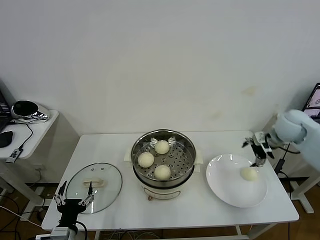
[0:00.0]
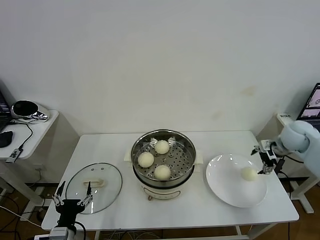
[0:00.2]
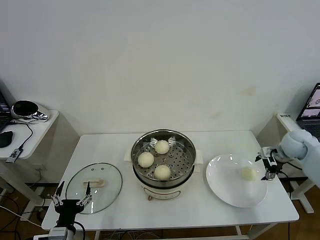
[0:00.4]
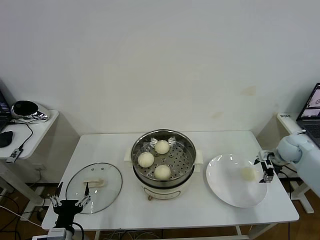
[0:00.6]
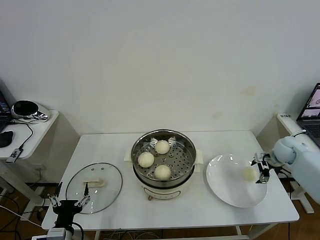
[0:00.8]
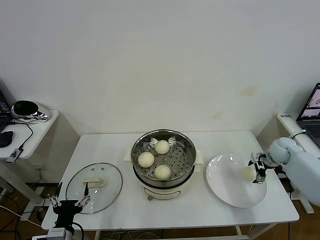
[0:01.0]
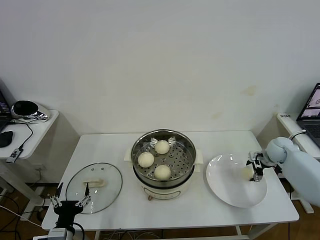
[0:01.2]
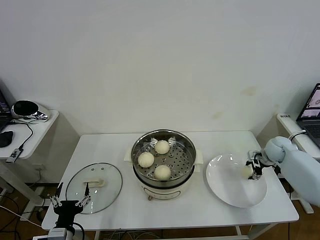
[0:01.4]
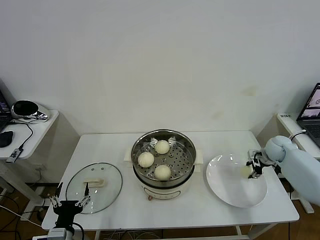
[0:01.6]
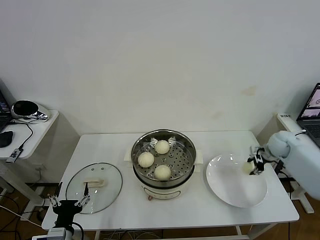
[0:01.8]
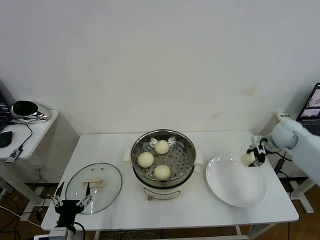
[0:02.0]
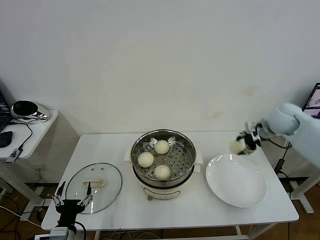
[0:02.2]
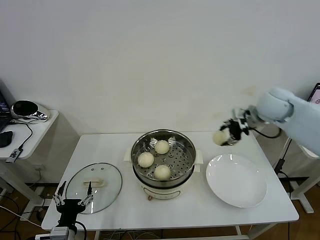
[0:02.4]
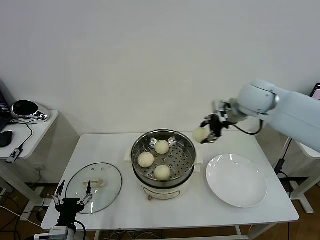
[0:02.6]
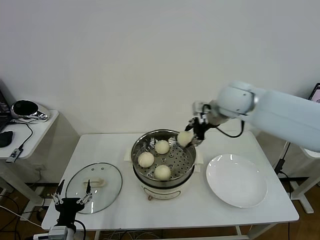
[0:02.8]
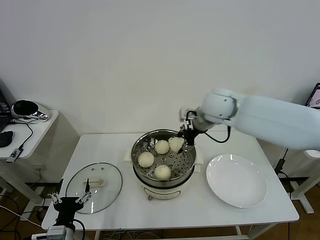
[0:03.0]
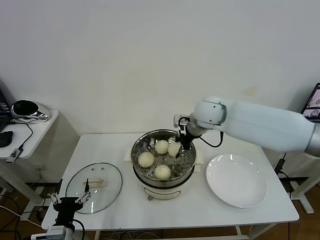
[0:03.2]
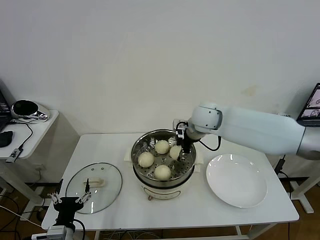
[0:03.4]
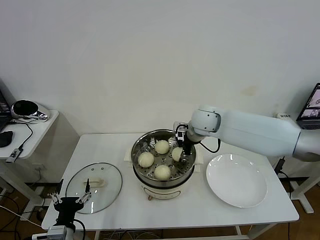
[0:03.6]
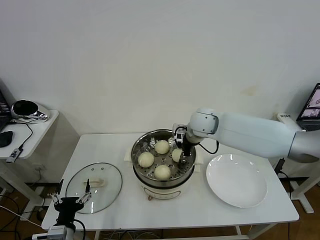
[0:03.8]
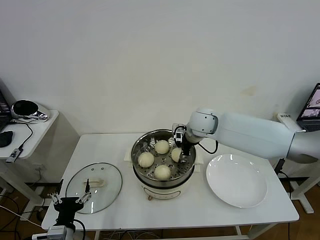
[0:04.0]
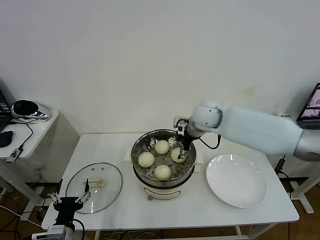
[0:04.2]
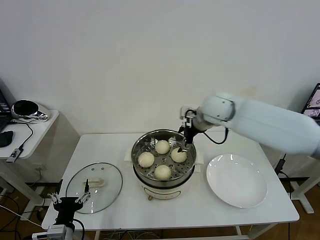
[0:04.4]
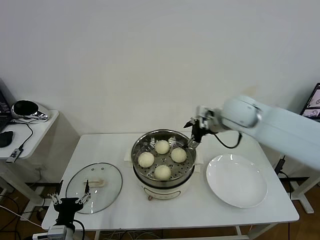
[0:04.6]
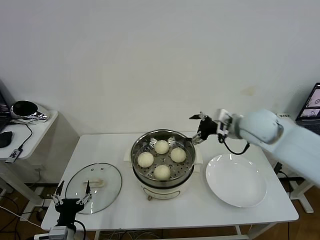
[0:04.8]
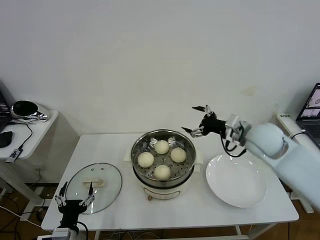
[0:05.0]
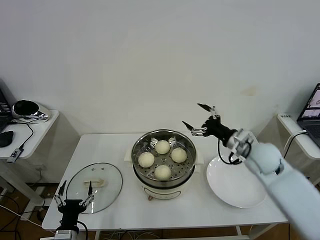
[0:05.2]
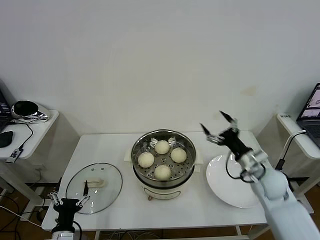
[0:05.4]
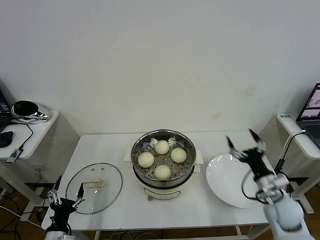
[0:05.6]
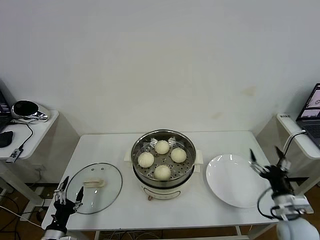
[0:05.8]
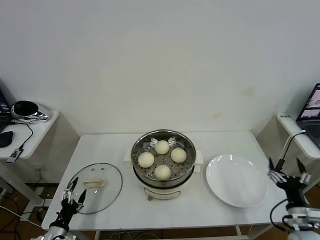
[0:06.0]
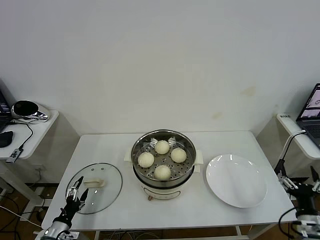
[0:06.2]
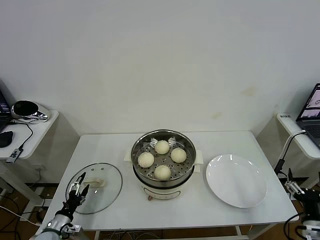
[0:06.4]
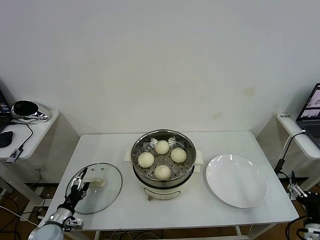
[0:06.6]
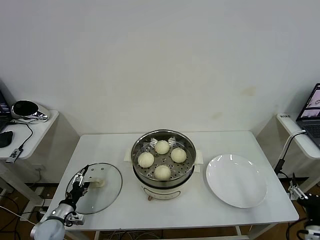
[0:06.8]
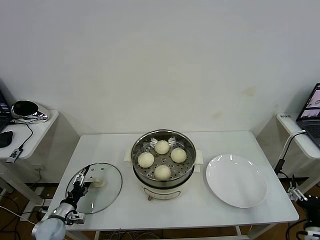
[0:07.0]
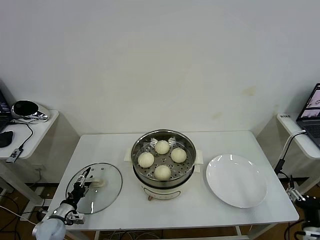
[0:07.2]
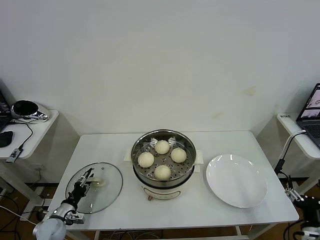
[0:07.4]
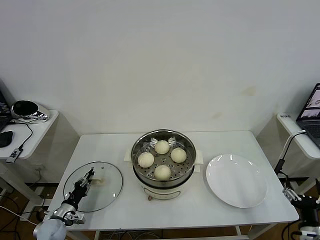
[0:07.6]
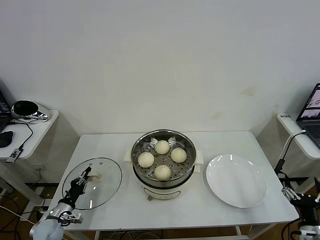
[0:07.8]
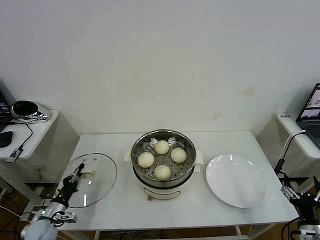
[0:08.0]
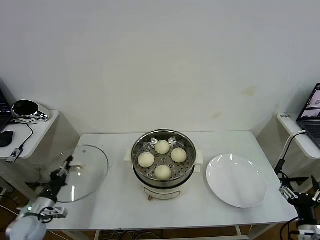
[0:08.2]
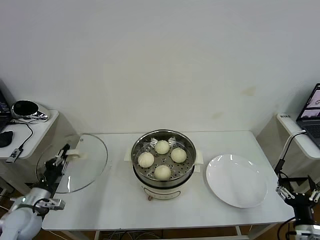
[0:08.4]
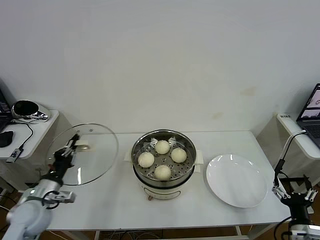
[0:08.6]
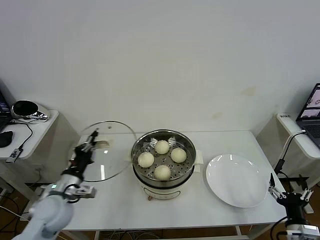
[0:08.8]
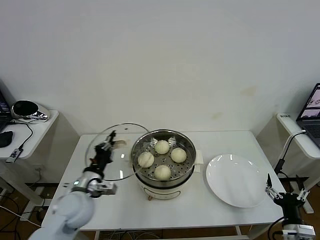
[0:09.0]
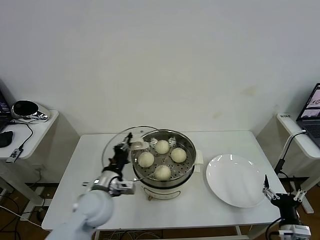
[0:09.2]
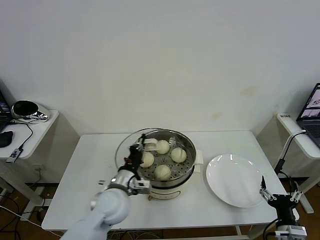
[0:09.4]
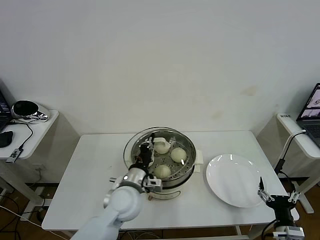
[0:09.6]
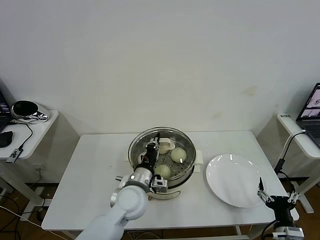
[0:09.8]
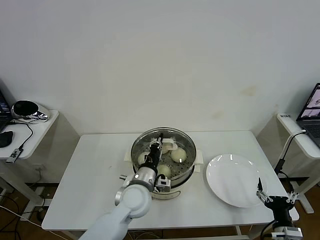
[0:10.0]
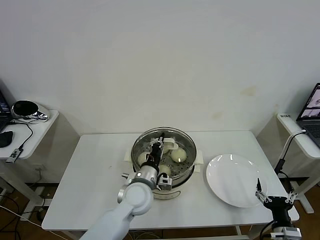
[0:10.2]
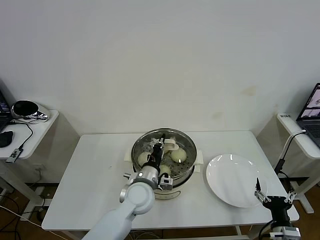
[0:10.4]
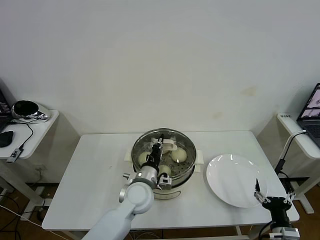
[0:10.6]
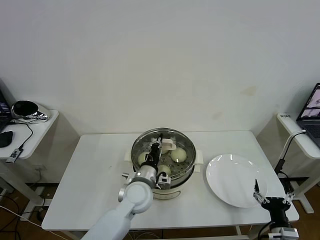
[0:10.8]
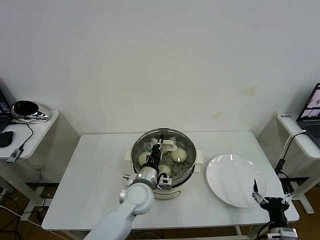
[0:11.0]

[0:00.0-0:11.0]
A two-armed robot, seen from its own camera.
Task of the whole recording: take steamed baozi put them in steamer then cover it.
Step, 0.0 to 1.4 s: Grasp the baozi in the plate with right gripper.
Step, 1.6 to 4.2 s: Place the baozi on the steamer with right gripper.
Step, 4.4 to 7.8 s: Grasp the pot lid with left gripper.
0.0 to 1.6 s: The right gripper heads downward, covering some 15 cm, and closes up.
1.6 to 3.2 s: The right gripper is displaced to the left and upward by approximately 35 cm.
3.2 to 4.8 s: The right gripper is displaced to the right and backward by about 15 cm, and opens its fingers.
4.8 to 6.2 s: The left gripper travels to the left and downward by about 15 cm. The right gripper heads backward, downward and to the right, covering about 40 cm.
6.2 to 7.8 s: The left gripper goes some 10 cm forward, and closes up.
7.8 to 9.4 s: The right gripper moves approximately 5 cm. The left gripper heads to the right and upward, covering approximately 30 cm.
9.4 to 11.0 s: The left gripper travels to the right by about 10 cm.

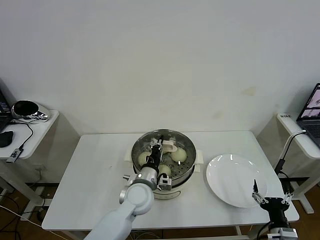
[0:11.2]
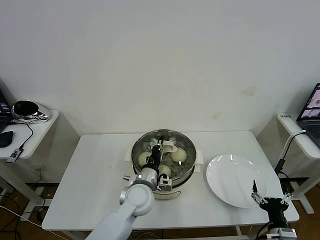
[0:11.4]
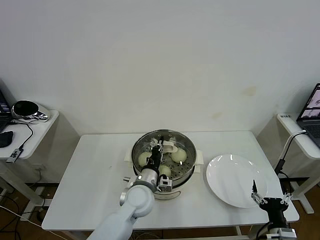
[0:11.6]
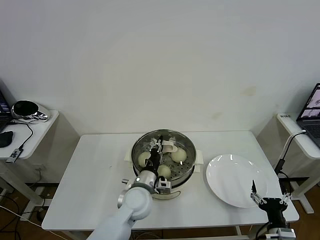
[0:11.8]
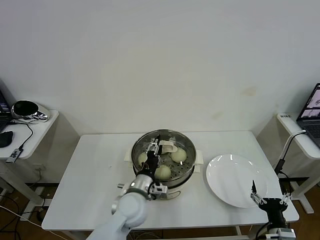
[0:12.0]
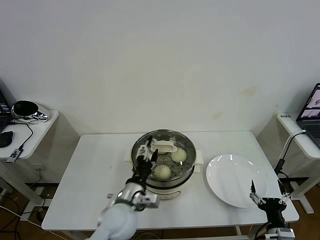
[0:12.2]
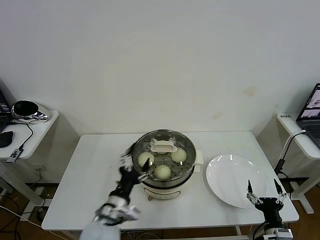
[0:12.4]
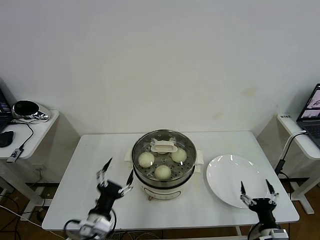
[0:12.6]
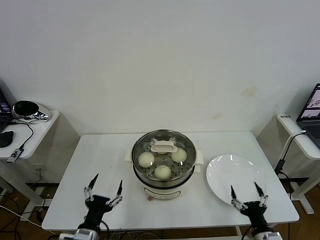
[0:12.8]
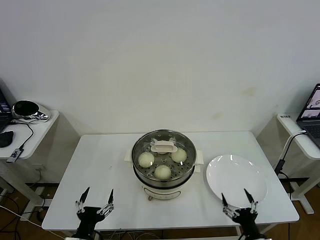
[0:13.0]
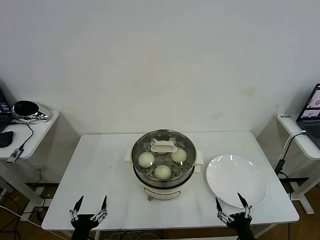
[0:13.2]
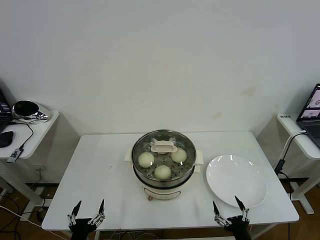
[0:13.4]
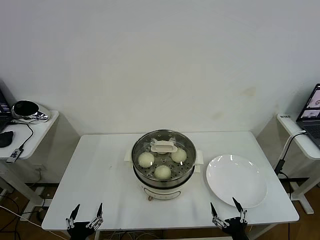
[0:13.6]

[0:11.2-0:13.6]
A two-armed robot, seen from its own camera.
Task of the whole recording: take steamed baozi put them in steamer then cover it.
11.2 to 12.4 s: The left gripper heads backward and to the left, covering some 15 cm, and opens.
12.4 to 13.6 s: The right gripper travels to the left by about 5 cm, while the left gripper goes roughly 20 cm backward, to the left and downward.

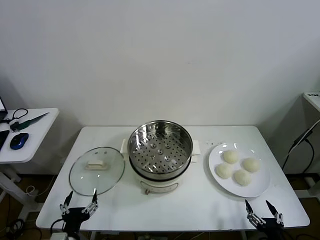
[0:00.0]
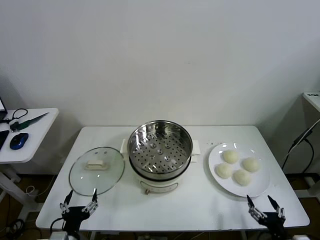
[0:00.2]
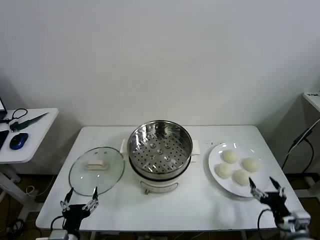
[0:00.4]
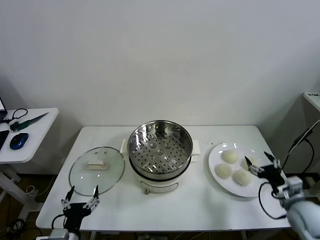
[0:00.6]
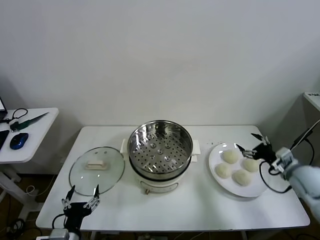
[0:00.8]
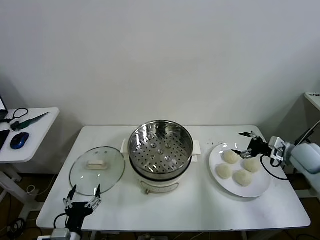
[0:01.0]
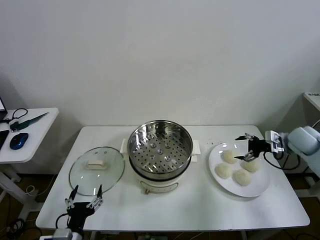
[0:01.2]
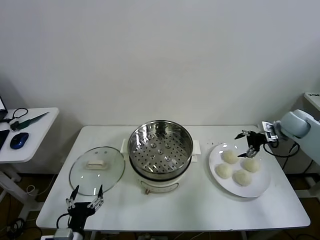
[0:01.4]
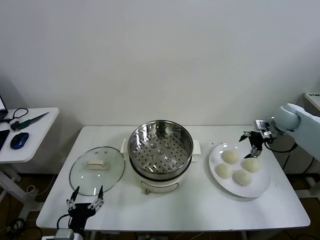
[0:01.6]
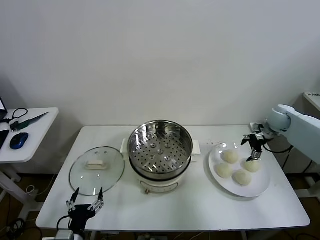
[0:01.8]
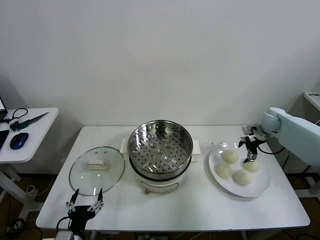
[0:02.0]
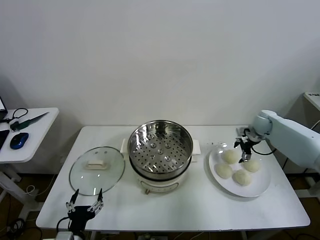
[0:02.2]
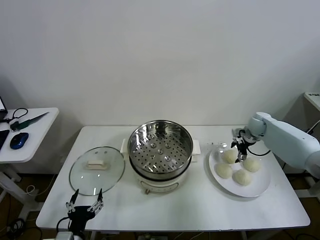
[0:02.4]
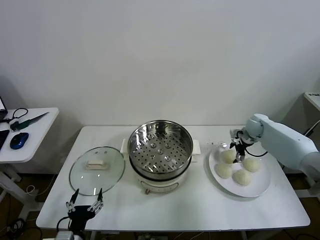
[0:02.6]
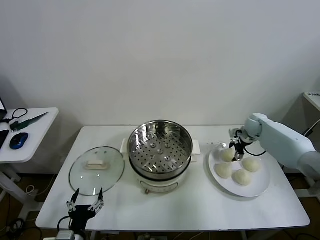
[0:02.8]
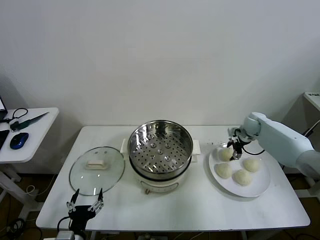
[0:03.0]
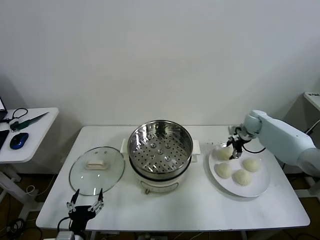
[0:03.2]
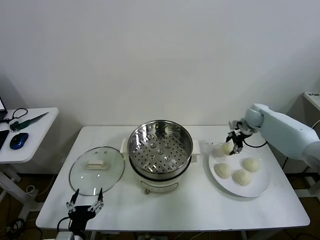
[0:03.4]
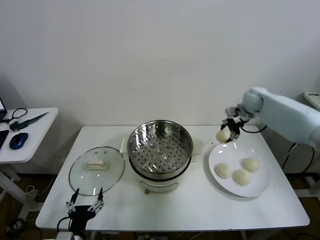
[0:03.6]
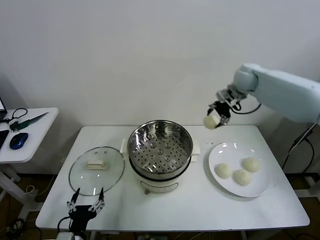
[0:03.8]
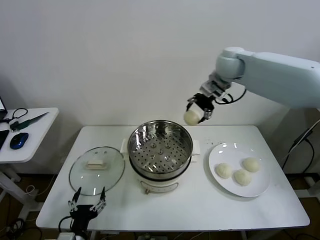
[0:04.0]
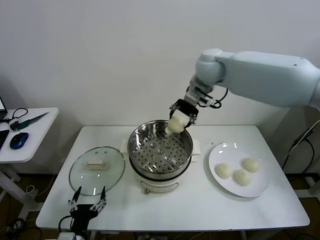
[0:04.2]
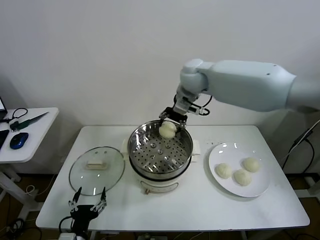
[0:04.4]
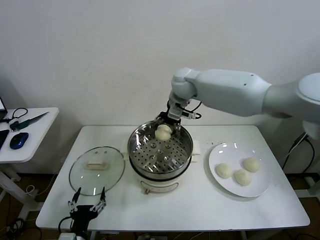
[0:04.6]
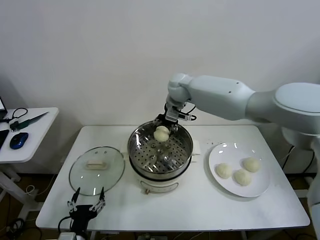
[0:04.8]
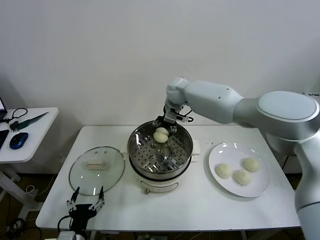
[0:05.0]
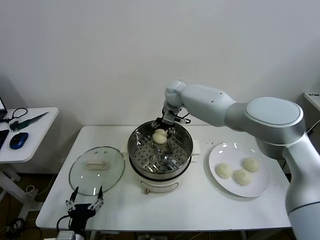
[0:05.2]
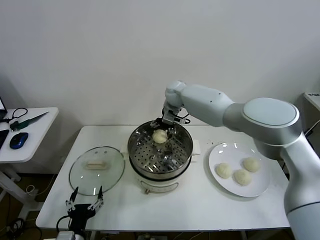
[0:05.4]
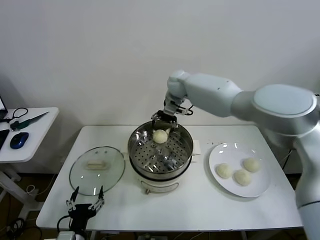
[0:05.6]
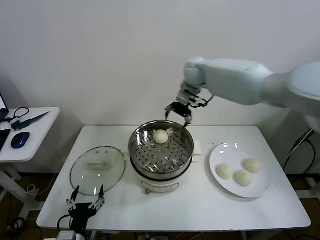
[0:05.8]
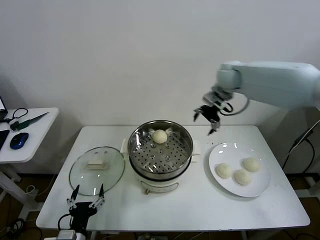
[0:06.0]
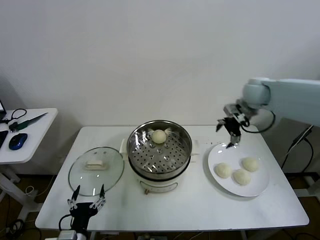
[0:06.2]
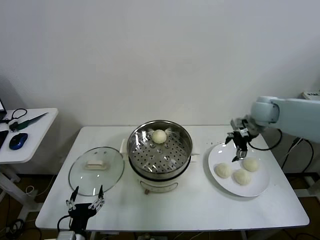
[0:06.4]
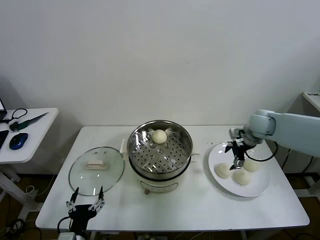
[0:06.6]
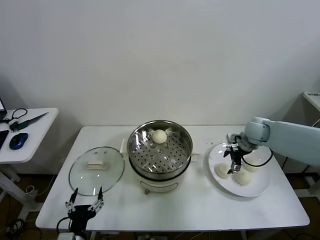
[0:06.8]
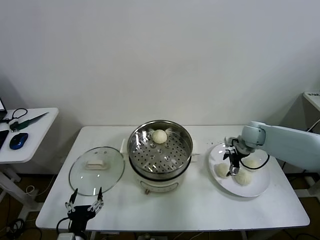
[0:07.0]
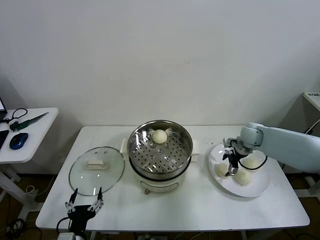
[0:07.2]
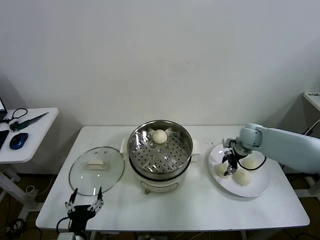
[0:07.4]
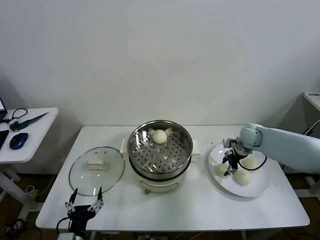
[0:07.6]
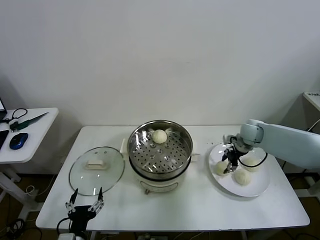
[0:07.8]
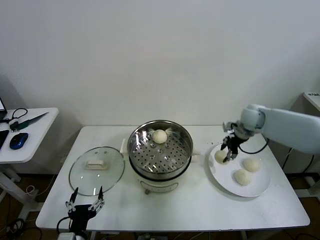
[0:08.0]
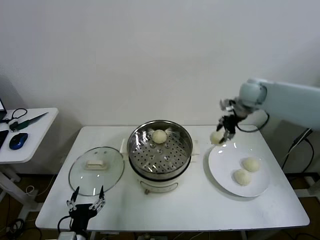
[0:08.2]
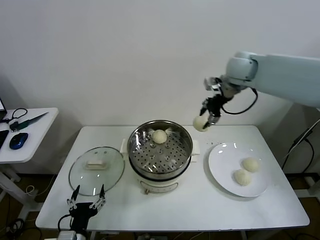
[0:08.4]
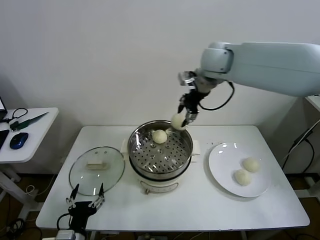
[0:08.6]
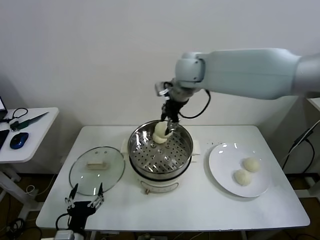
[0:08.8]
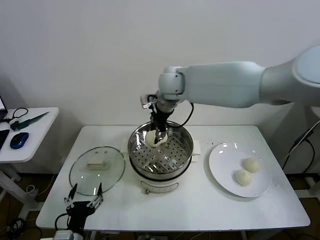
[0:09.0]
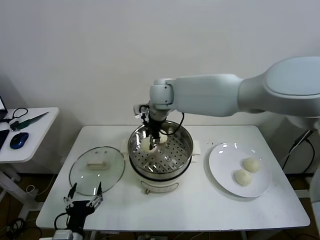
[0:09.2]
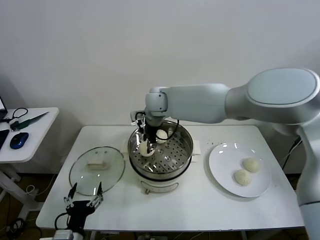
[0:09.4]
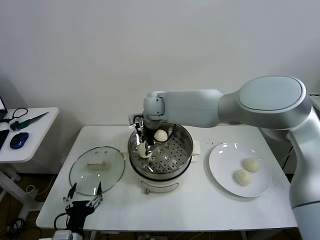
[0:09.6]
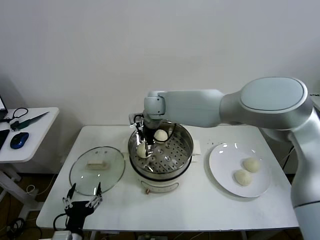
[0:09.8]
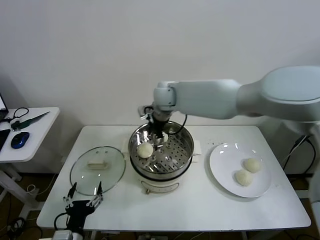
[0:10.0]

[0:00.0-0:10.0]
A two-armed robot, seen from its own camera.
Task of the whole recording: take steamed baozi put them in steamer then cover it.
Step, 0.0 to 2.8 s: Grasp the baozi in the plate with right gripper.
Step, 3.0 to 5.4 s: Place the baozi on the steamer with right gripper.
Step, 5.6 to 7.4 s: Grasp the baozi in the plate with right gripper.
Step, 7.6 to 9.8 s: Place the baozi on the steamer with right gripper.
1.4 to 2.8 s: The right gripper is displaced downward, to the left and forward by approximately 15 cm, and closes.
2.8 to 4.2 s: The right gripper shifts some 40 cm to the left and upward.
4.2 to 5.8 s: The right gripper travels to the right and forward by approximately 10 cm, travels downward and back again, approximately 15 cm each way, and opens.
5.8 to 7.2 s: The right gripper shifts some 30 cm downward and to the right.
7.2 to 8.6 s: The right gripper travels upward and to the left by some 35 cm, and closes its fingers.
8.6 to 10.0 s: The right gripper heads downward and to the left, covering some 15 cm, and opens.
